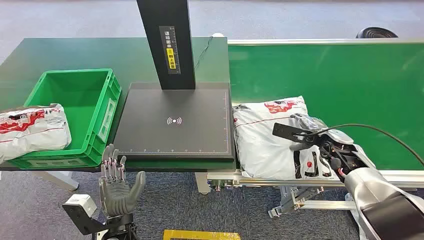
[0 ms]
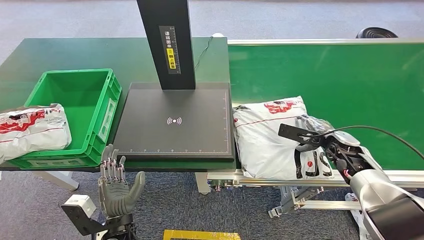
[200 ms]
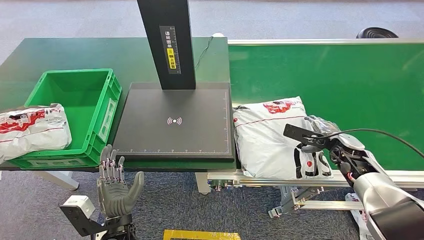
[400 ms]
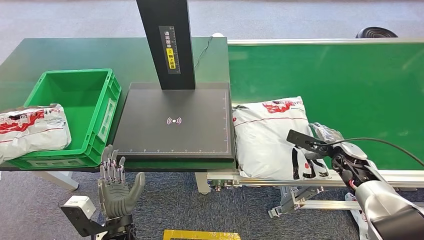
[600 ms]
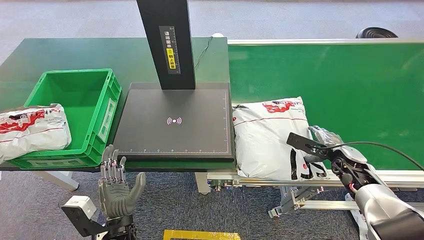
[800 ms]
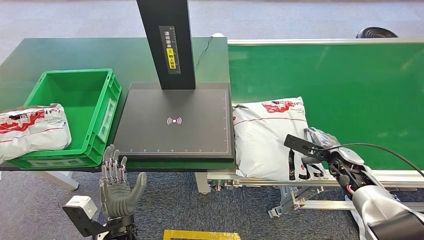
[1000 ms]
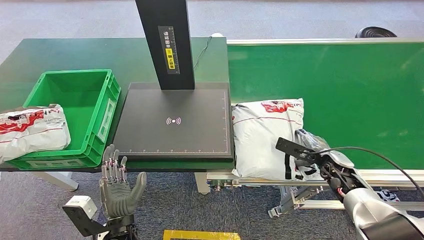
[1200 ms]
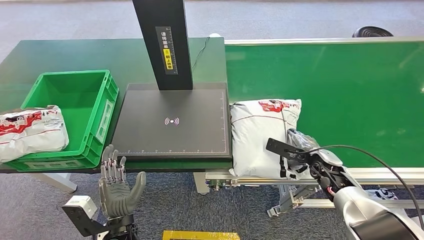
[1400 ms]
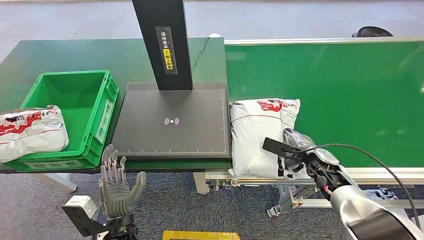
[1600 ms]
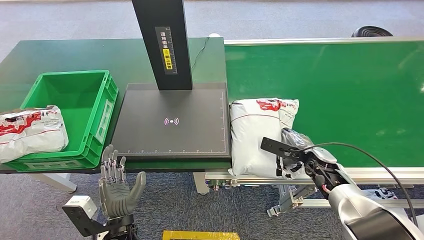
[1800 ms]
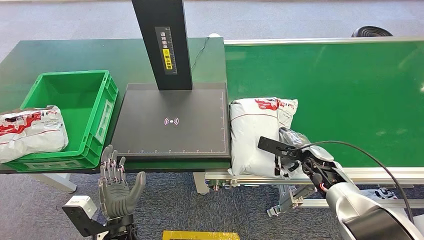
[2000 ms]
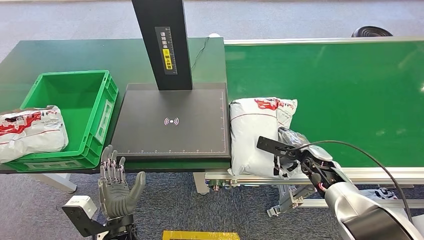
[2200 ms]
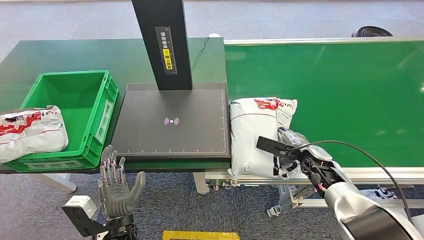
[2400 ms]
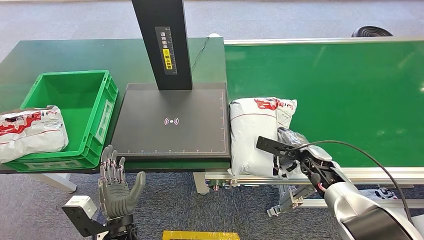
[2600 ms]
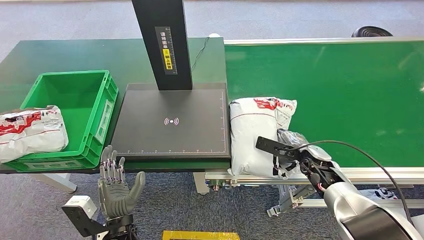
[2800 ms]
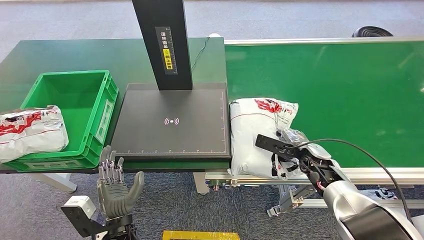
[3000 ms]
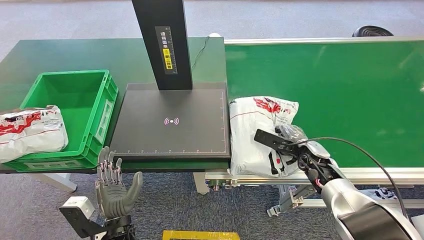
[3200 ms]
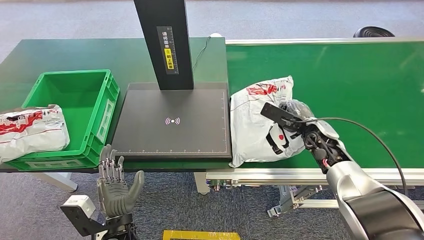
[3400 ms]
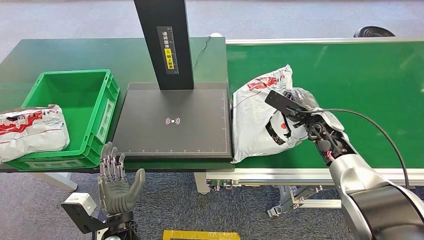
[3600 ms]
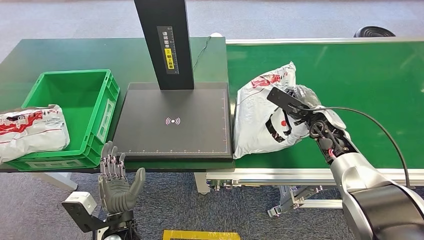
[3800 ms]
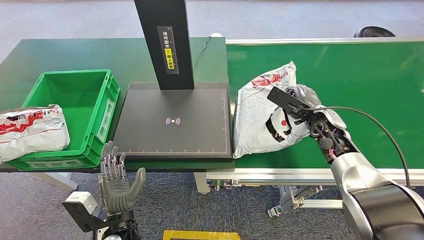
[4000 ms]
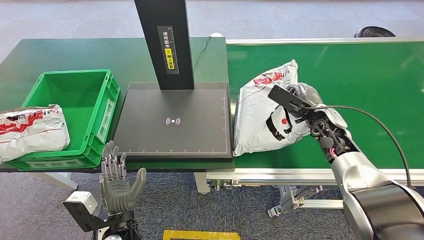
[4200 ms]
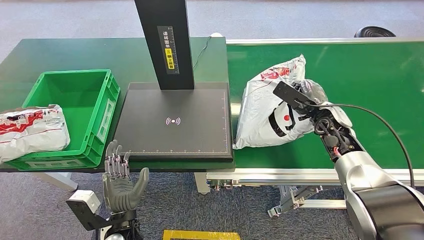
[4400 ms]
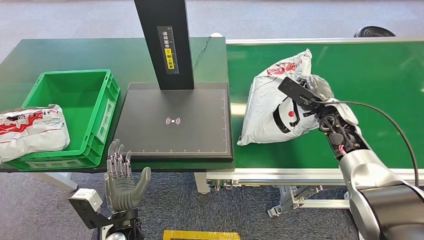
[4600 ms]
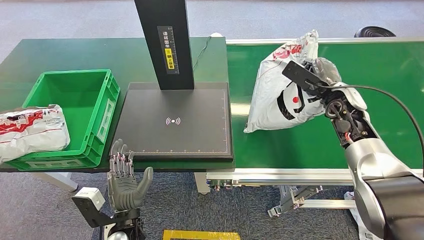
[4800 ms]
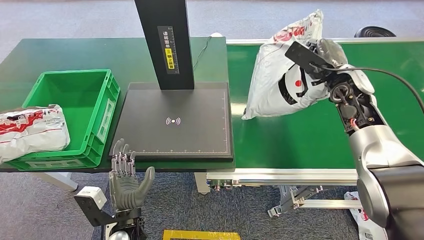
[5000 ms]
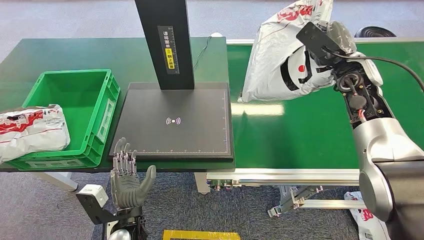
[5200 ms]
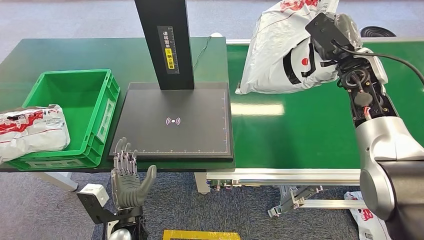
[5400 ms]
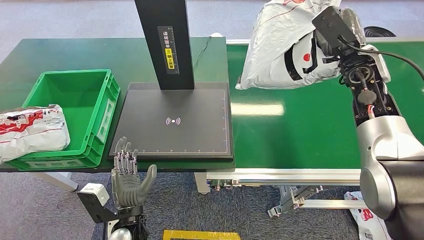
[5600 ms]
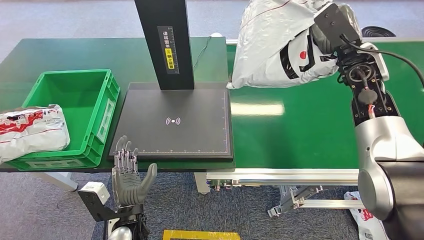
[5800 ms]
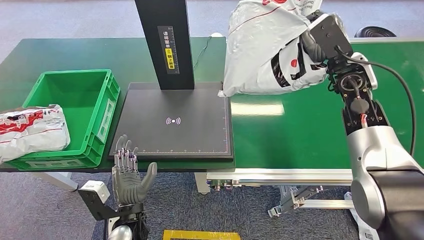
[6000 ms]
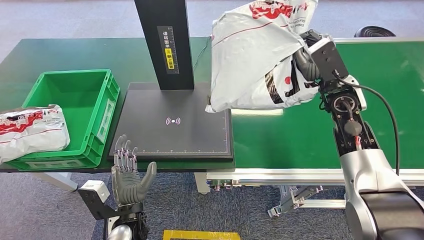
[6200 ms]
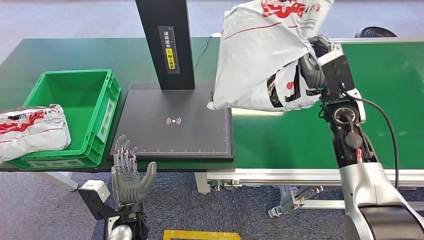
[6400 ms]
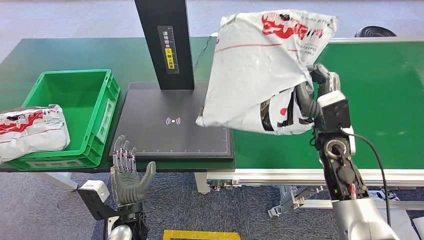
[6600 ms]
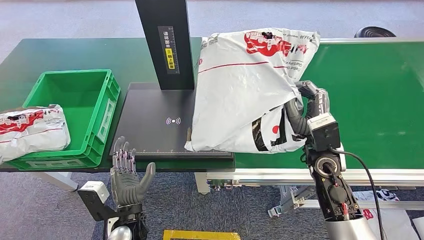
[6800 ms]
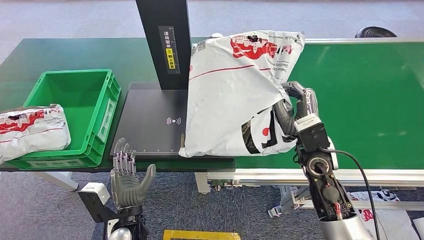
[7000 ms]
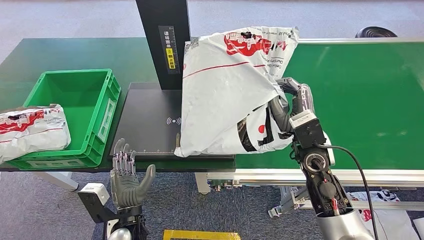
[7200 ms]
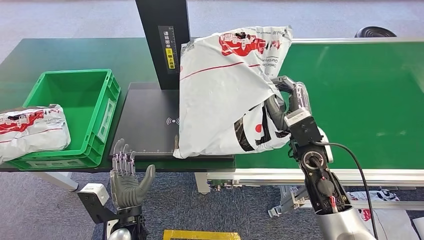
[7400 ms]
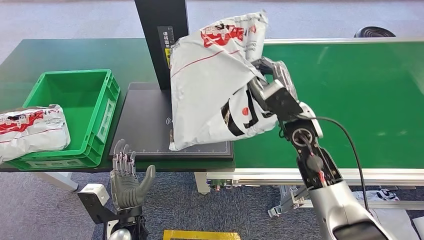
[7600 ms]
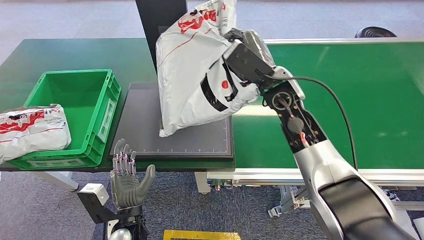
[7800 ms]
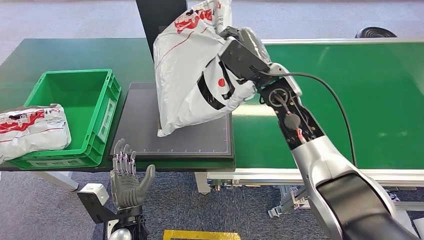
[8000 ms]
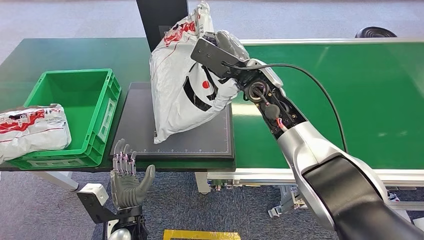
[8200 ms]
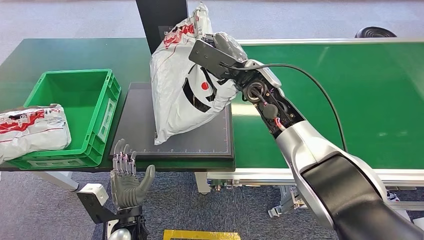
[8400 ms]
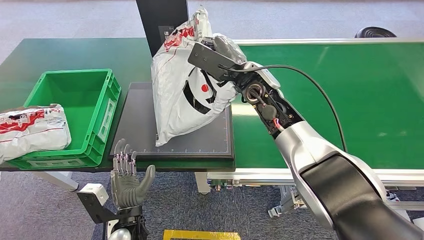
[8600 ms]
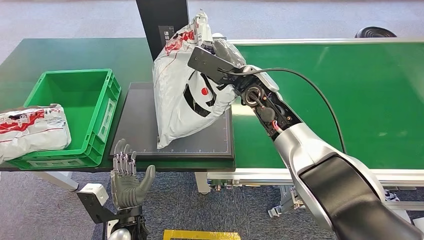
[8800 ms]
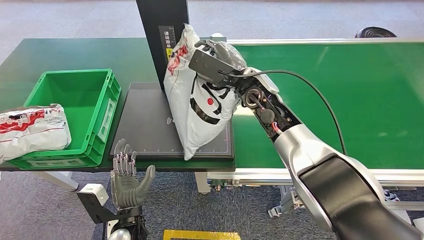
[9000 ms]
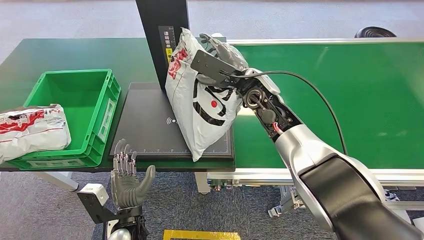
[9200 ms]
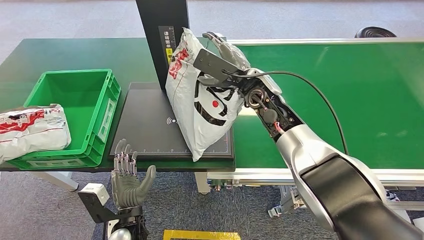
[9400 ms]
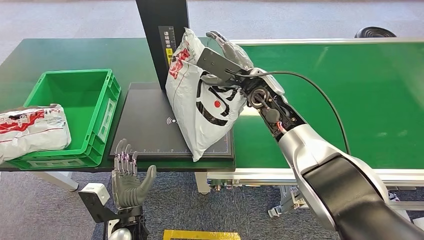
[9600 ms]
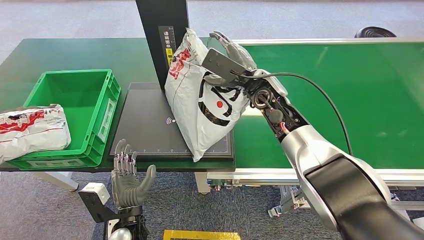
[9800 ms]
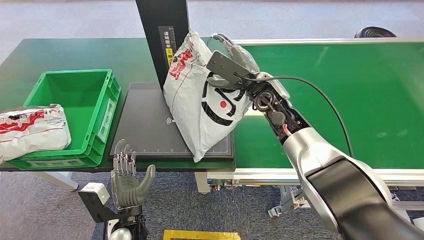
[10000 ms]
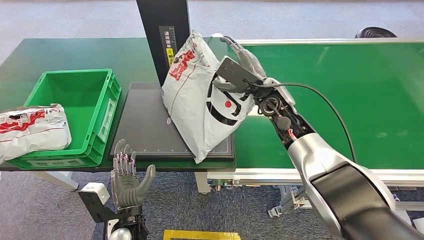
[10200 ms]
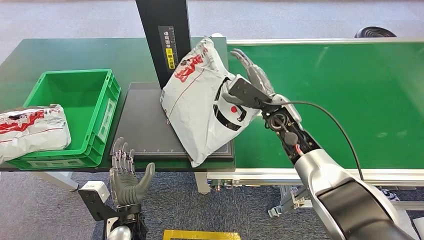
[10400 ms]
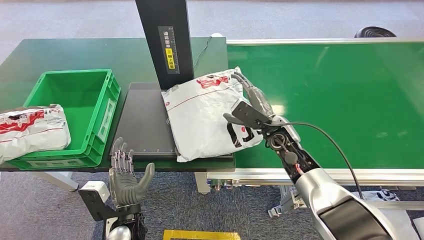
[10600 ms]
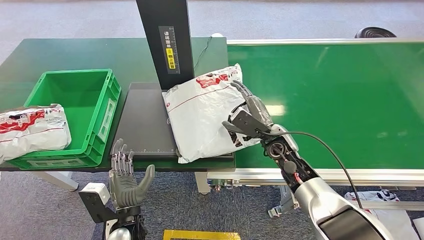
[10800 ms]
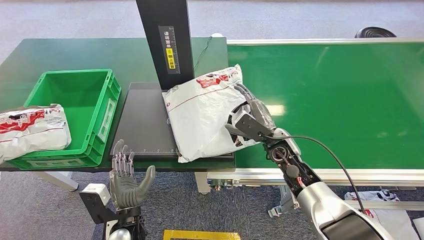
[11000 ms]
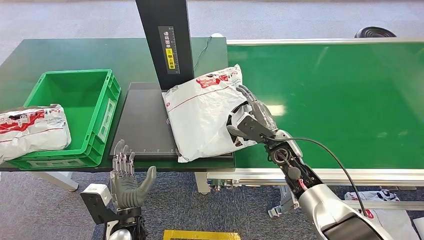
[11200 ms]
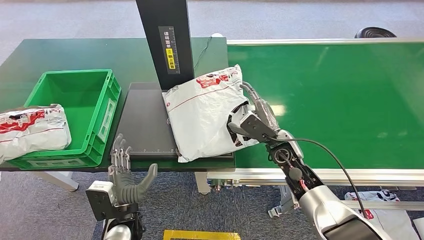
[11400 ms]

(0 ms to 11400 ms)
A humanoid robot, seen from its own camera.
Step, 0 ms - 5400 ms: Pick up the package from the conveyor belt.
1400 ms - 2800 ms: The hands stay close to where they were, moving slightly.
2800 ms - 4200 ms: The right hand travels upward and forward by roughly 10 cm.
8600 ms - 10000 ms: The right hand changes place by some 5 cm.

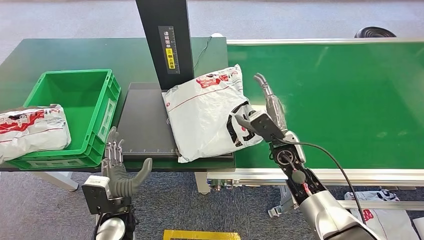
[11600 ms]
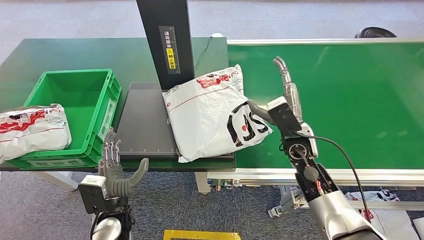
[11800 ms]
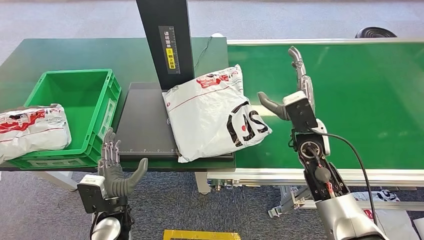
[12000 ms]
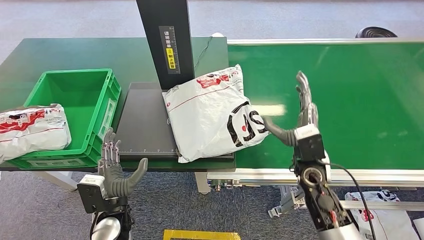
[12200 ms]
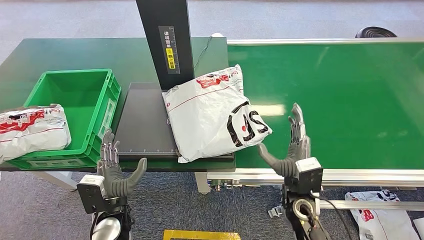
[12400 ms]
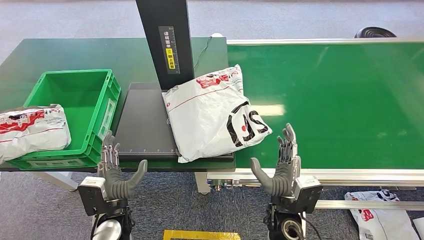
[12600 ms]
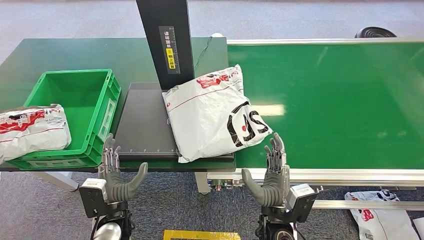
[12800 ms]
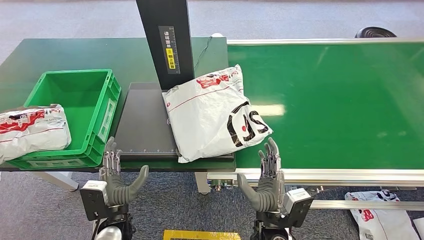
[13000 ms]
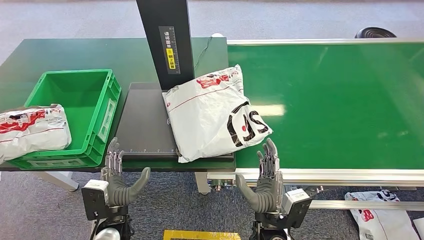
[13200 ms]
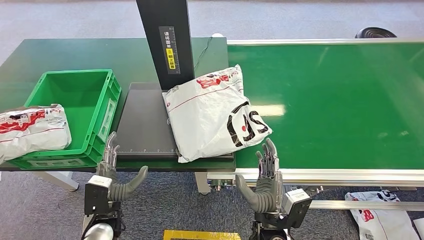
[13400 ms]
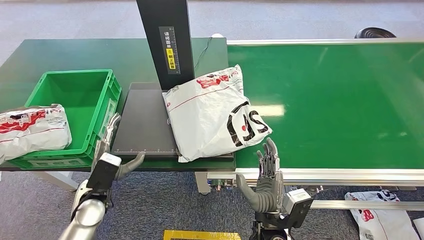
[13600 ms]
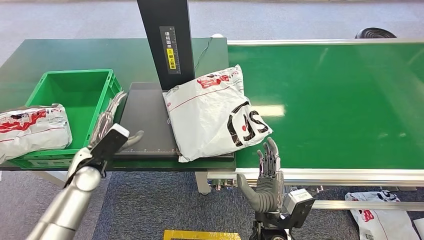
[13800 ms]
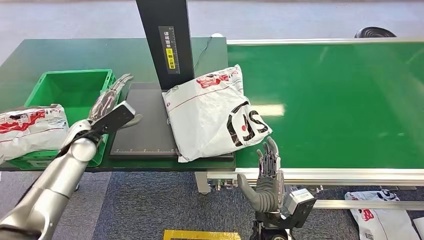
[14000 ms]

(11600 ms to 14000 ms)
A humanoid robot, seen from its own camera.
Step, 11600 ms - 13800 ms: Place the package onto the inbound machine.
11600 ms - 12800 ms: The right hand heads backward and to the left, covering approximately 20 cm.
12800 ms - 14000 ms: The left hand travels forward, to the left and upward by about 25 cm.

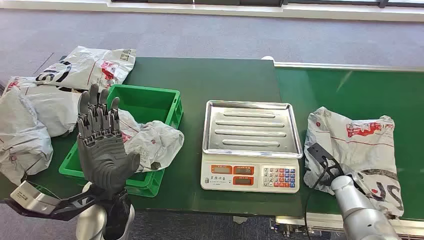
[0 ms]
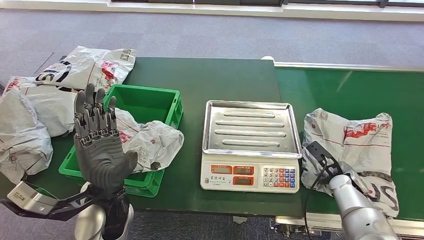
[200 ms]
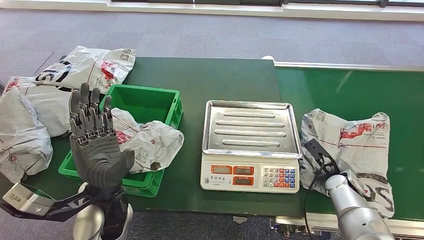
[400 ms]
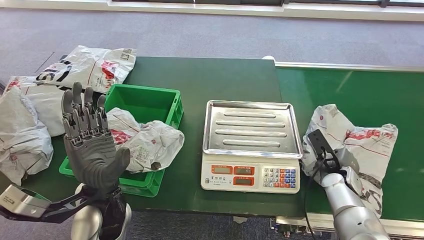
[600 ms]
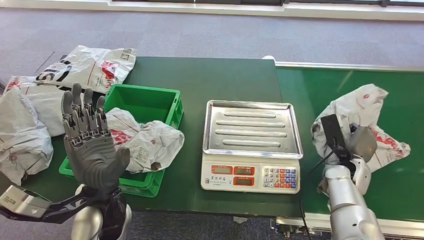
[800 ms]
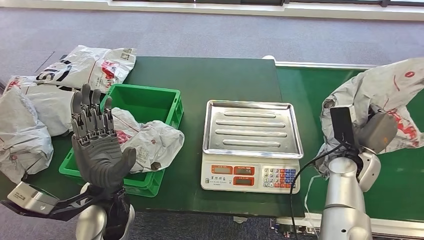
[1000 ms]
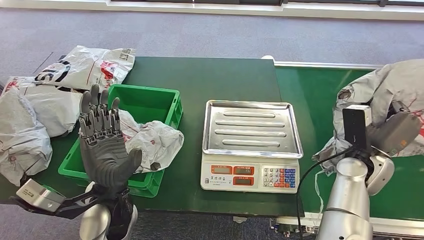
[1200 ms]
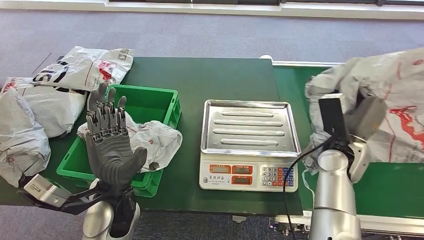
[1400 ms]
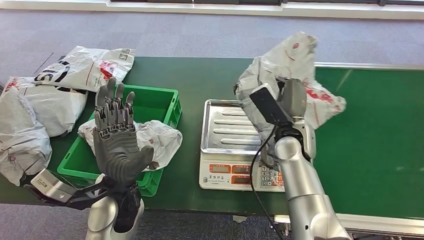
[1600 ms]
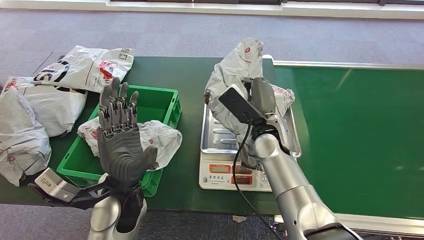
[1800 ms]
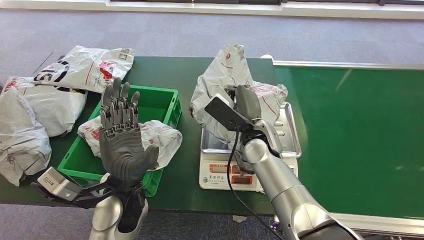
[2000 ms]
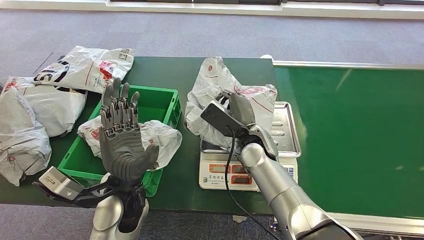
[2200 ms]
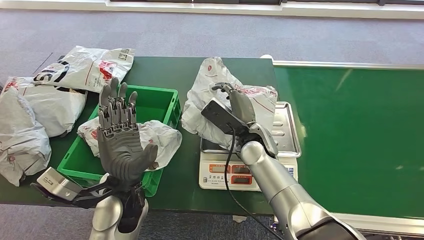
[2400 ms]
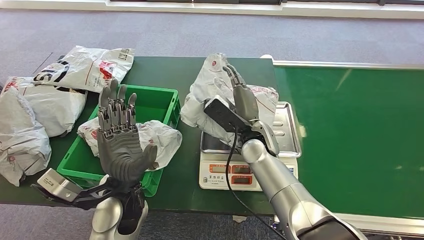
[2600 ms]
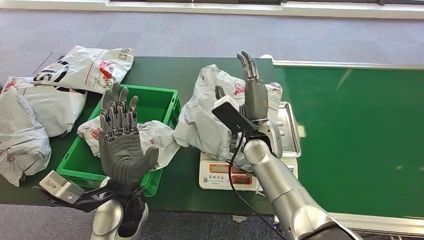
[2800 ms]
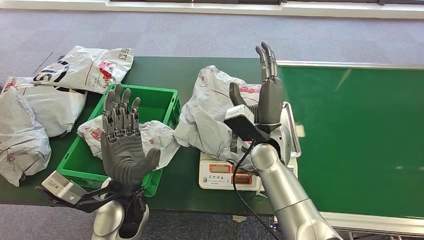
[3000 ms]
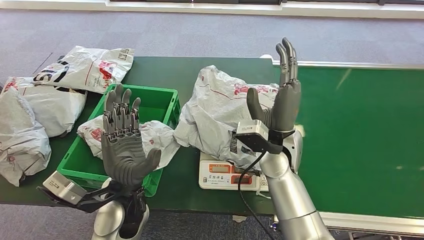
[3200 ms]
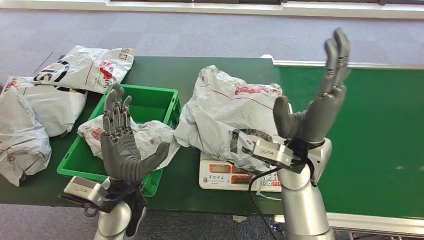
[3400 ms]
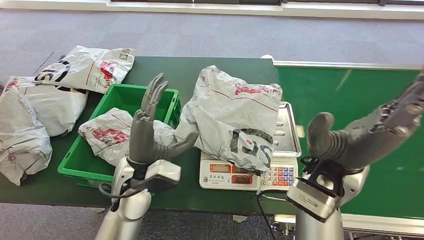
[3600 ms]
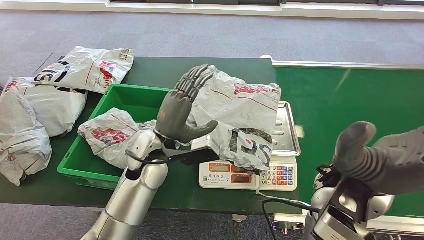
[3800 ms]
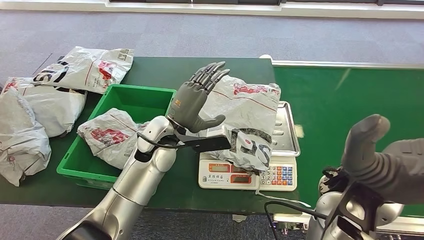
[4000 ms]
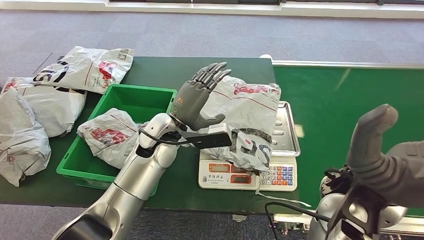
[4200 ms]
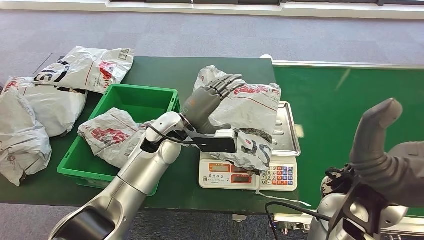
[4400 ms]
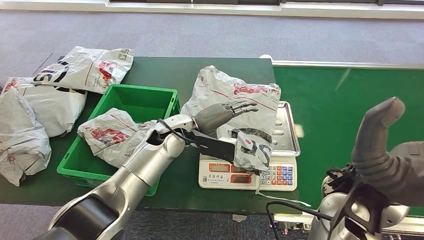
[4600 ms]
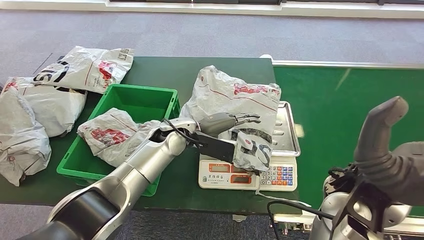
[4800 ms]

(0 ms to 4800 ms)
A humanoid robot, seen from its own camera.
Step, 0 ms - 1200 ms: Pick up the package from the conveyor belt.
Step, 1400 ms - 3200 ms: Place the package onto the inbound machine.
